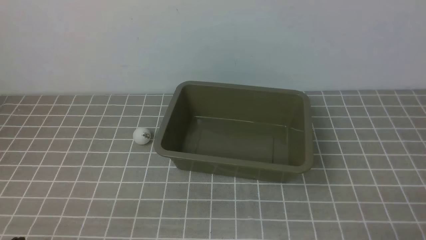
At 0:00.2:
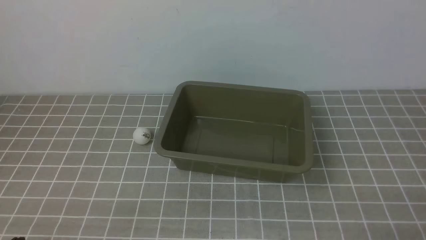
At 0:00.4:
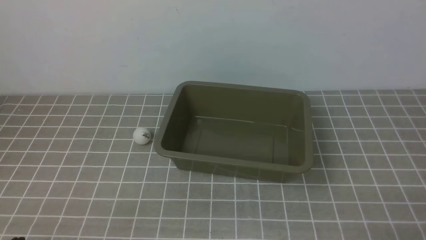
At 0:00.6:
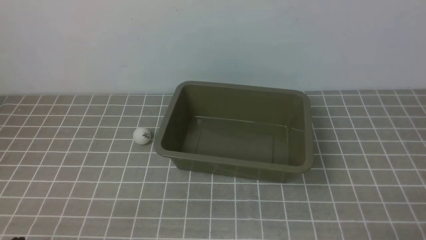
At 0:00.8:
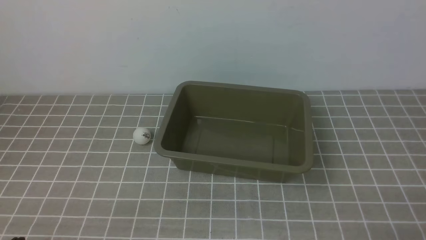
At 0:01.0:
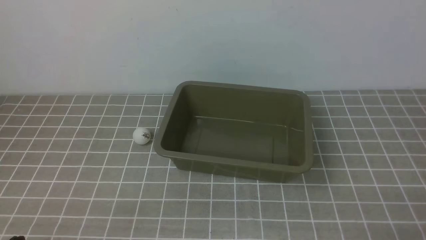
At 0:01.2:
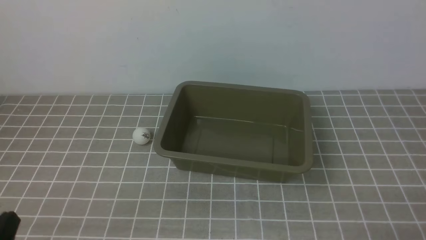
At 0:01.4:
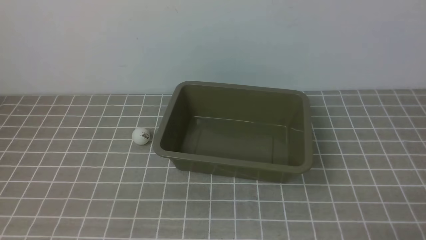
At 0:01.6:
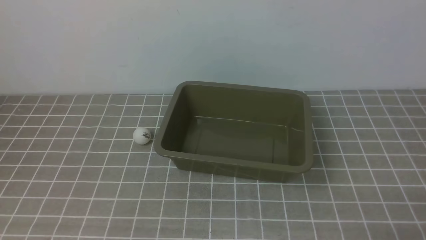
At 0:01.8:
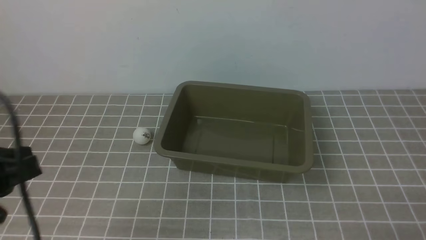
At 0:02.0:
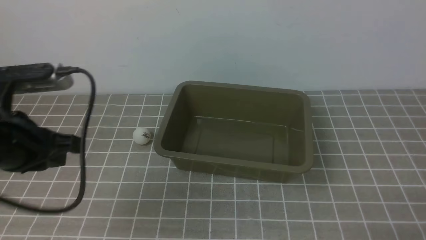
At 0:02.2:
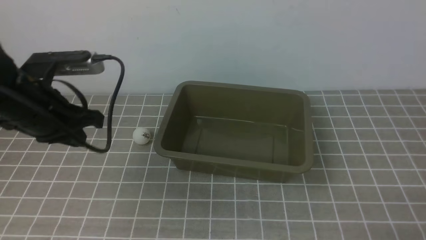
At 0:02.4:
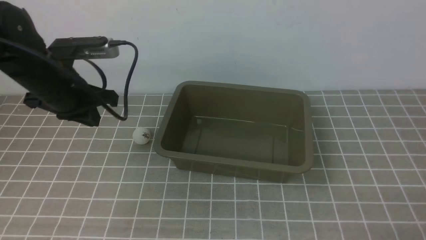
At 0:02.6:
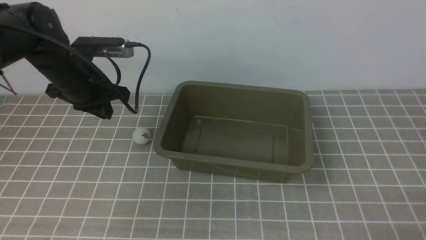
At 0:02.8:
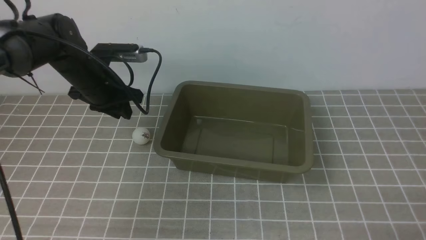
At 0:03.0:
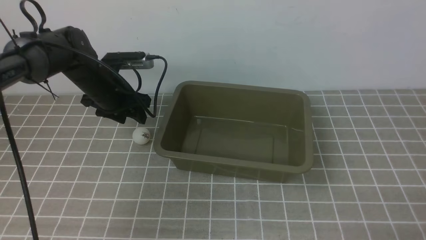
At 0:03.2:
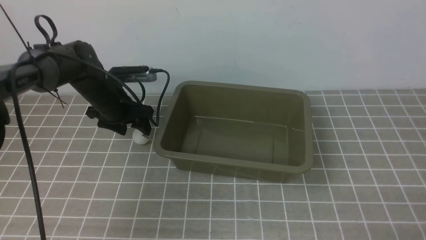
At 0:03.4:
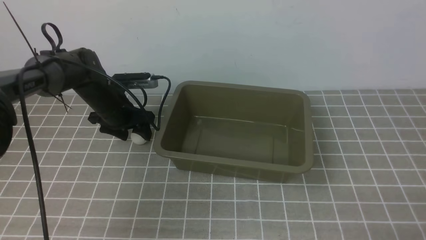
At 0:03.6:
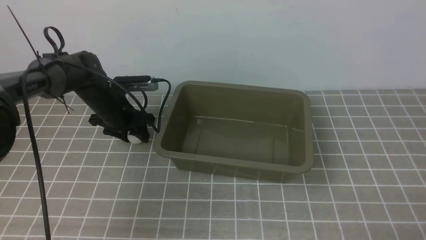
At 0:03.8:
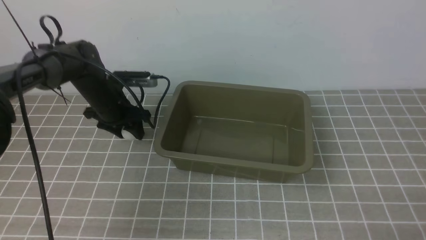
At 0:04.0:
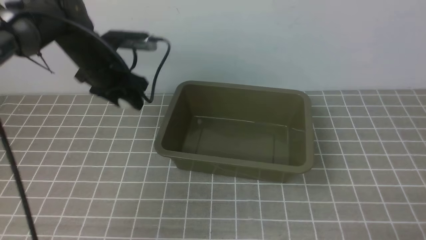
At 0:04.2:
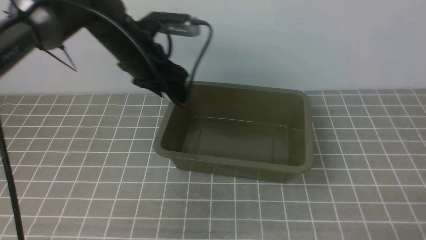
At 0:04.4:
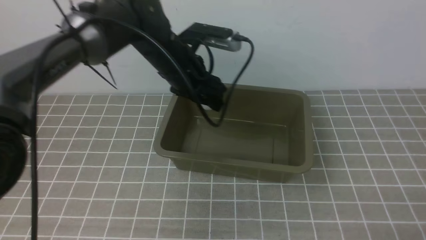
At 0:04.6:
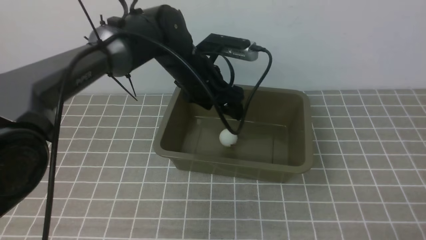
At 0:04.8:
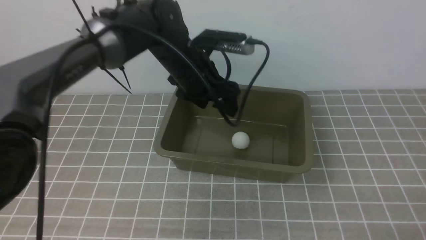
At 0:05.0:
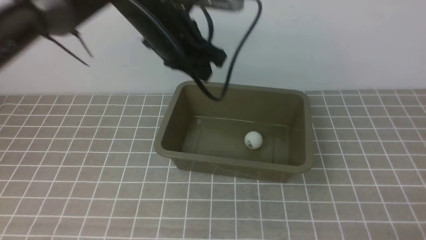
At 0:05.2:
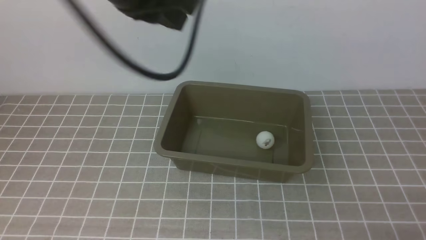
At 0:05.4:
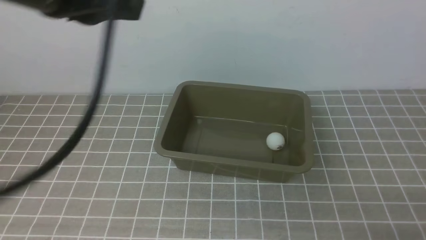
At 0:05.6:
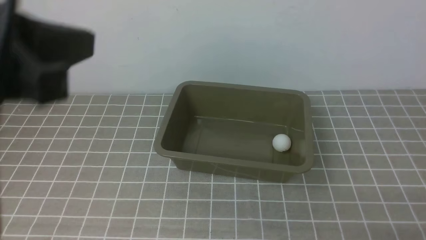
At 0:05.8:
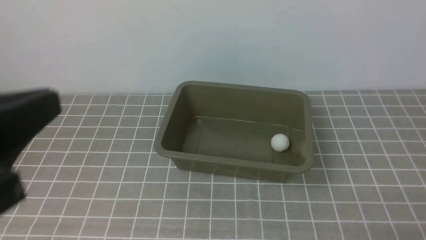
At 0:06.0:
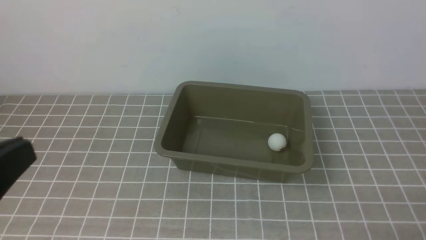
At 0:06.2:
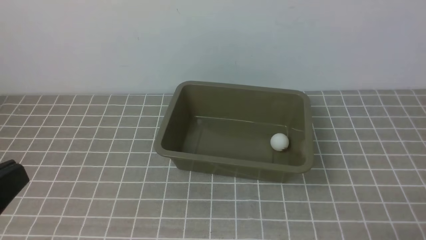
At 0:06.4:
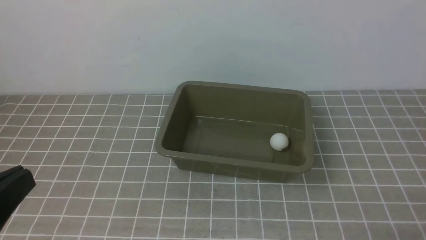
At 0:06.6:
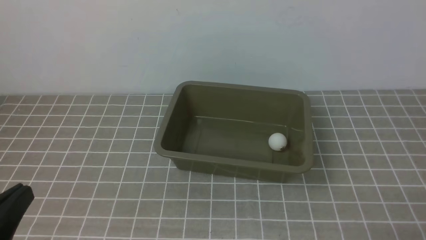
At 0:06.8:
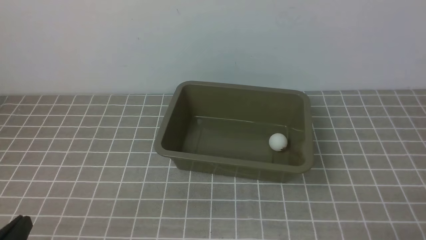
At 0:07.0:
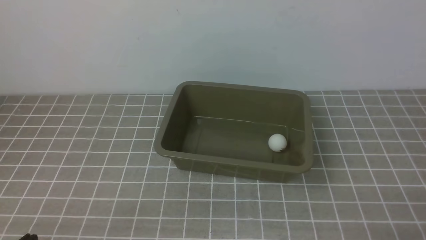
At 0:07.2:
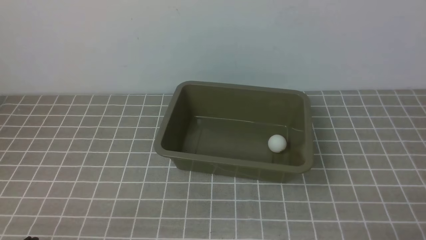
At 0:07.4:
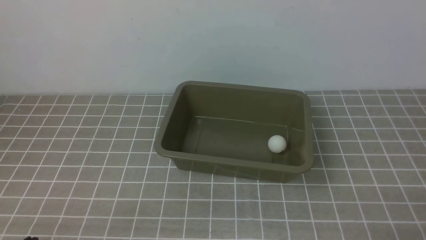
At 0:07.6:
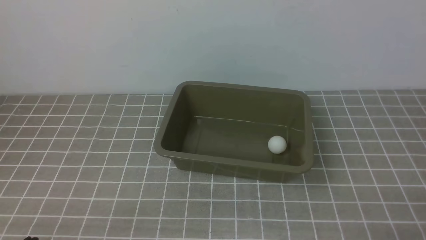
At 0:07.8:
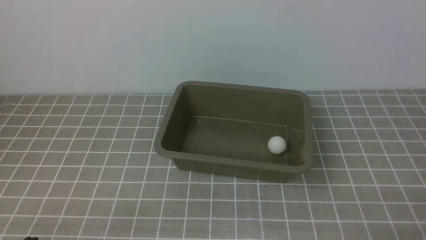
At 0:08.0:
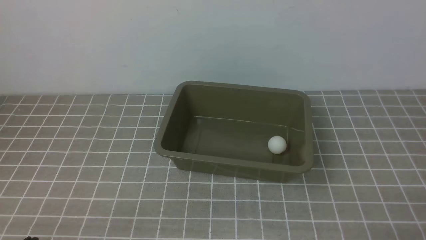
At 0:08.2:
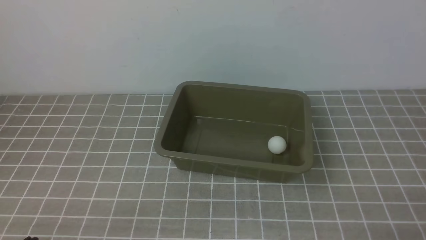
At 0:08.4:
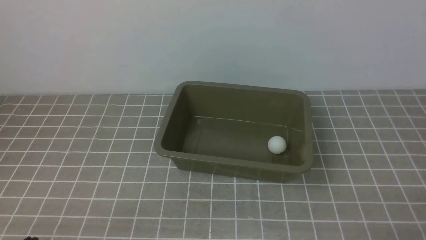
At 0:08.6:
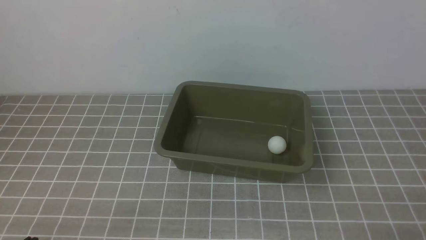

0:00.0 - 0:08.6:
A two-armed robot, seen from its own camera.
Step, 0:00.0 - 0:03.8: use the left arm to clamp the table tennis ball closest to it.
Step, 0:04.0 - 0:04.6: use the left arm to put the table tennis ball into the box.
0:01.4 - 0:02.8: The left gripper heads forward, covering some 35 cm.
0:02.8 - 0:04.4: The left gripper is displaced to the right by roughly 15 cm, reaches about 10 cm downward, then returns, and opens up.
0:04.4 - 0:05.8: The left gripper shifts roughly 35 cm backward and upward, and closes its fingers.
0:05.8 - 0:07.2: The left gripper moves downward, approximately 25 cm.
0:07.2 - 0:08.6: Both grippers stay put.
